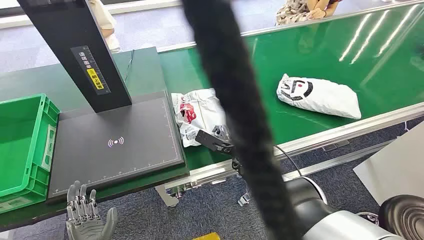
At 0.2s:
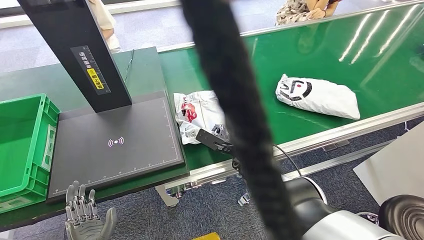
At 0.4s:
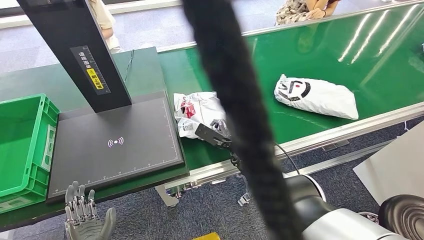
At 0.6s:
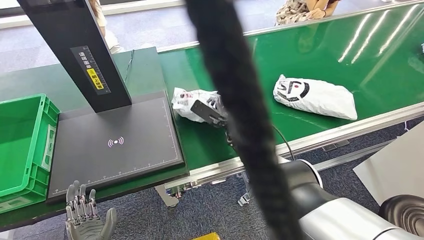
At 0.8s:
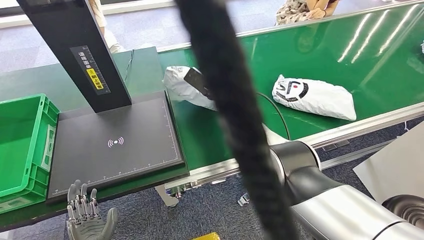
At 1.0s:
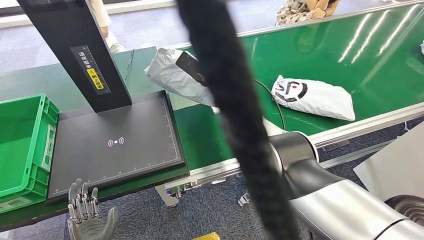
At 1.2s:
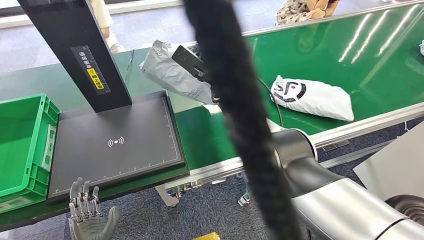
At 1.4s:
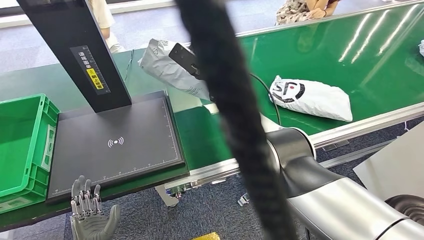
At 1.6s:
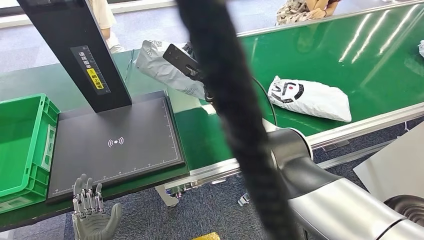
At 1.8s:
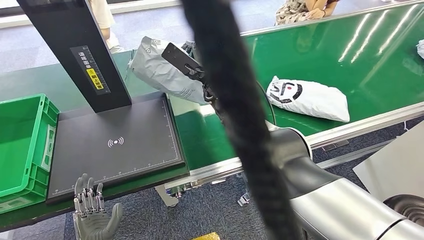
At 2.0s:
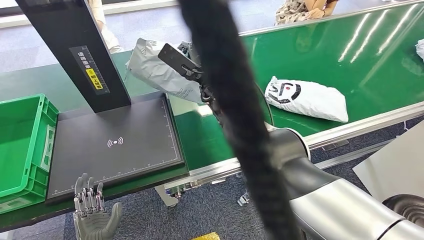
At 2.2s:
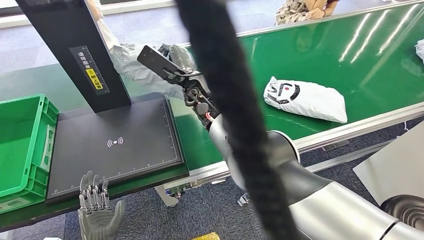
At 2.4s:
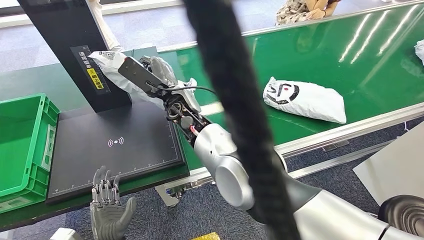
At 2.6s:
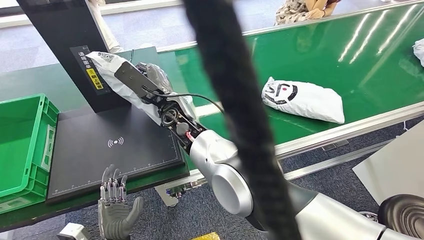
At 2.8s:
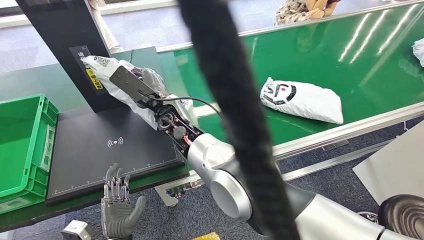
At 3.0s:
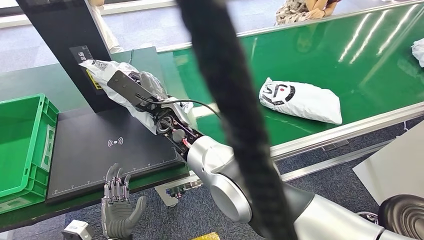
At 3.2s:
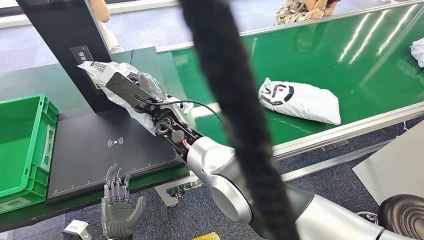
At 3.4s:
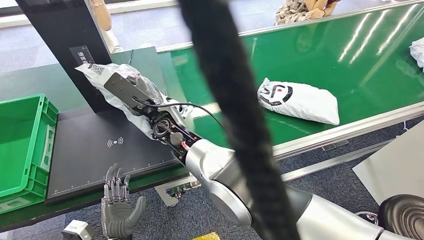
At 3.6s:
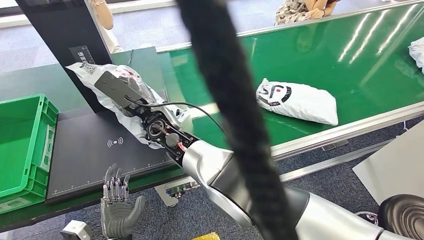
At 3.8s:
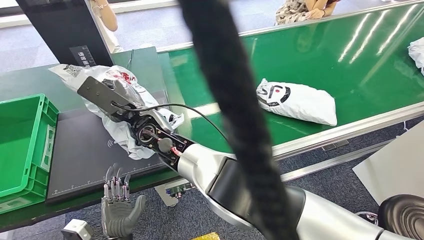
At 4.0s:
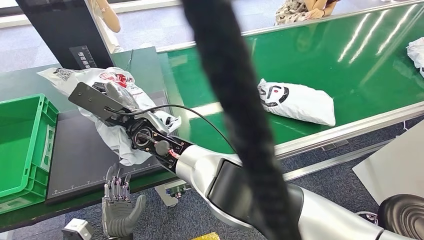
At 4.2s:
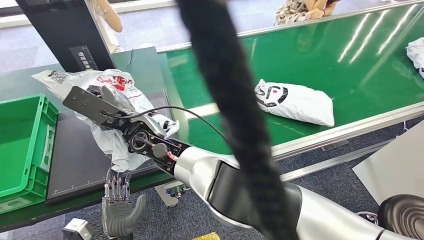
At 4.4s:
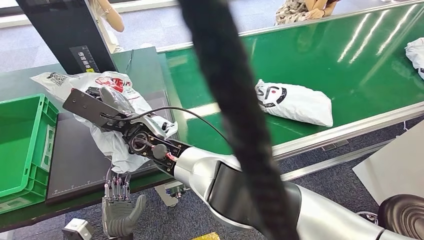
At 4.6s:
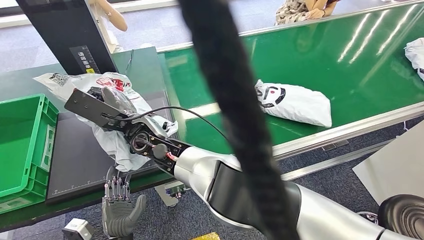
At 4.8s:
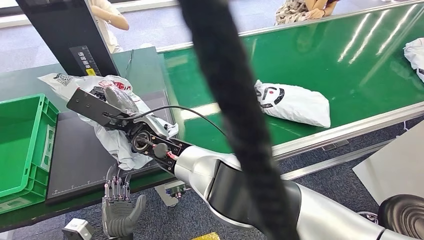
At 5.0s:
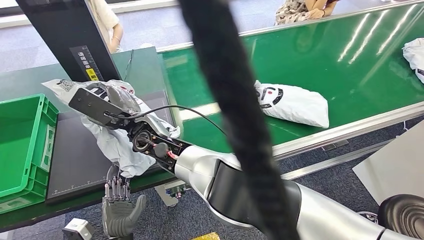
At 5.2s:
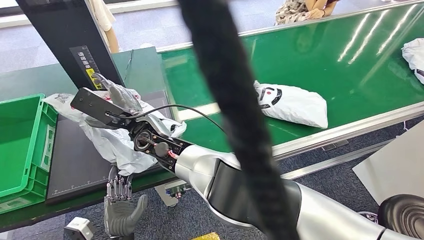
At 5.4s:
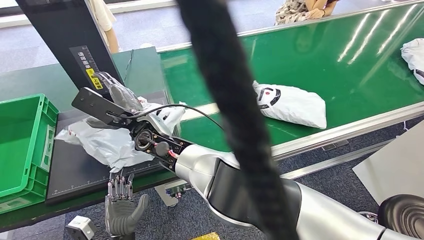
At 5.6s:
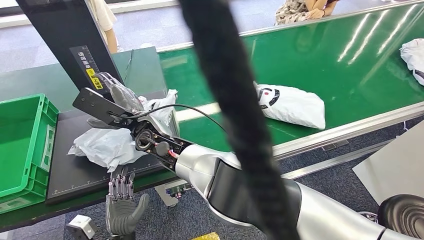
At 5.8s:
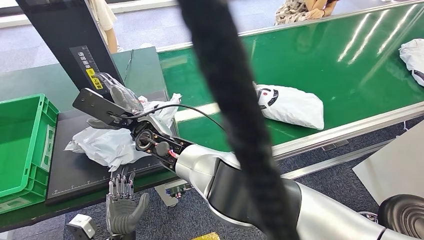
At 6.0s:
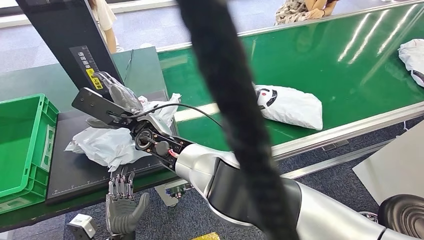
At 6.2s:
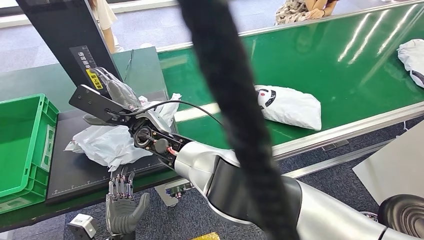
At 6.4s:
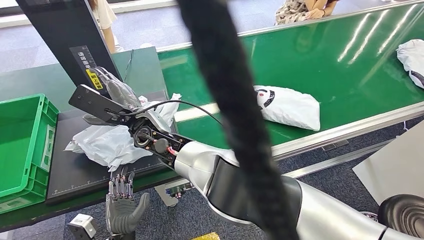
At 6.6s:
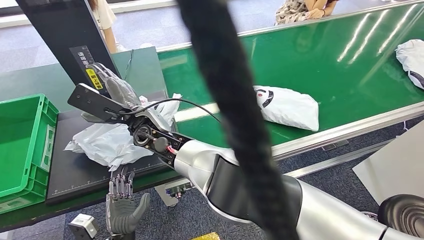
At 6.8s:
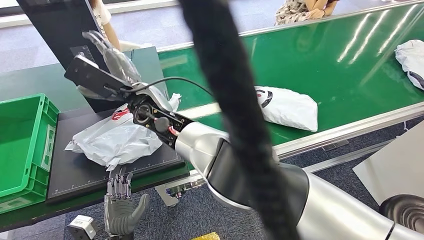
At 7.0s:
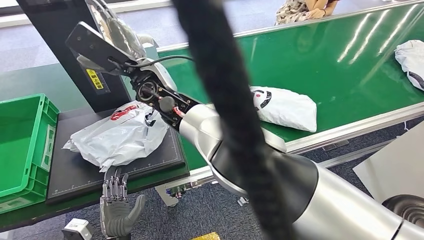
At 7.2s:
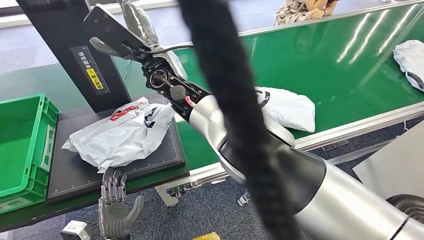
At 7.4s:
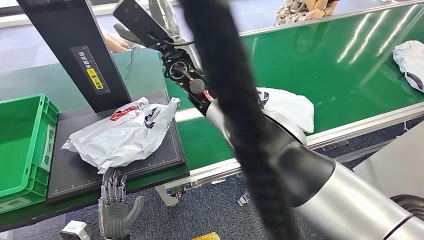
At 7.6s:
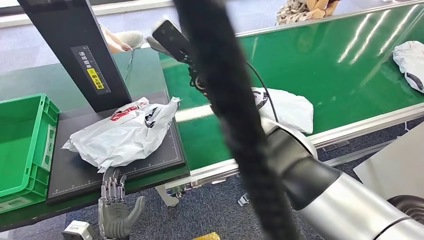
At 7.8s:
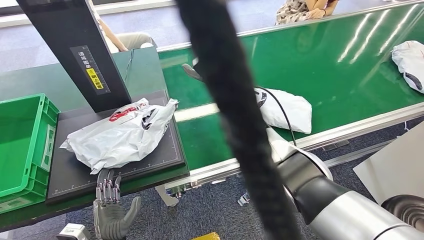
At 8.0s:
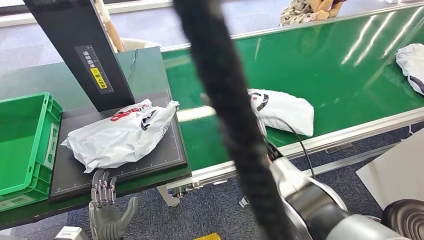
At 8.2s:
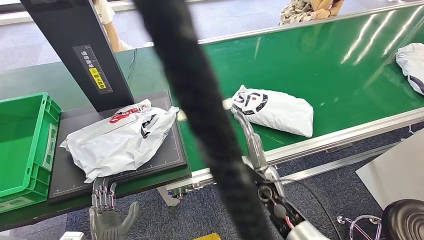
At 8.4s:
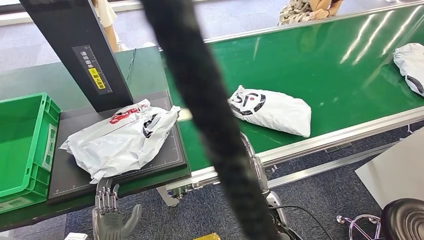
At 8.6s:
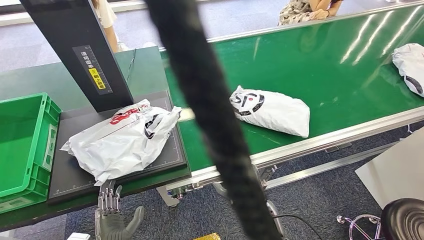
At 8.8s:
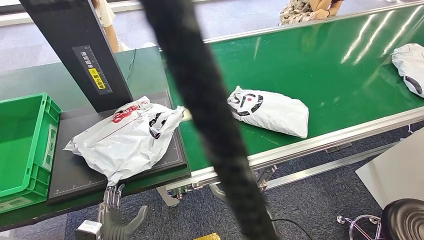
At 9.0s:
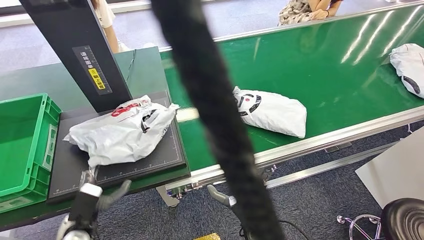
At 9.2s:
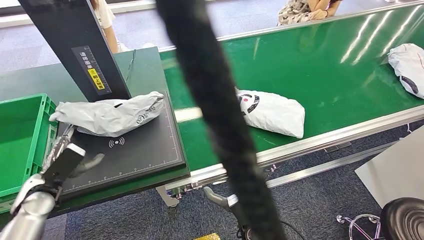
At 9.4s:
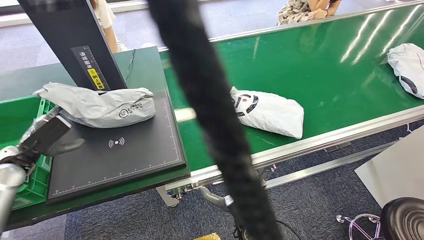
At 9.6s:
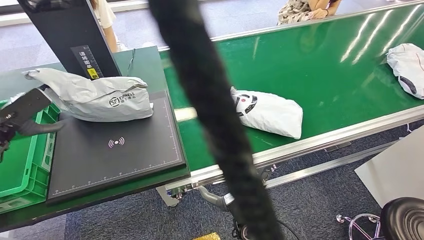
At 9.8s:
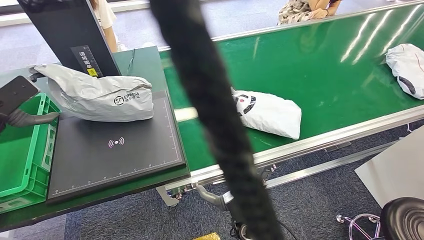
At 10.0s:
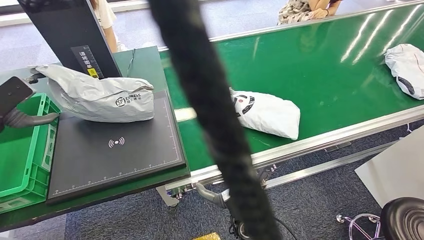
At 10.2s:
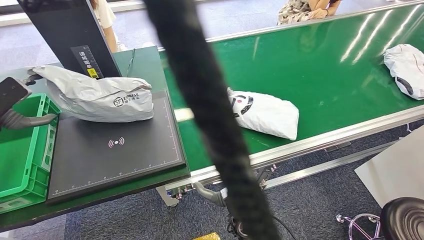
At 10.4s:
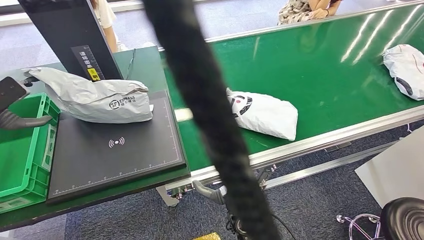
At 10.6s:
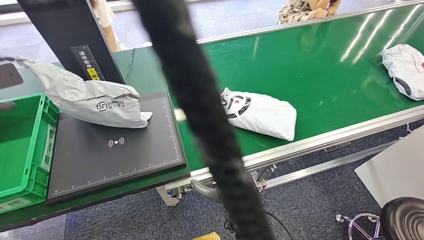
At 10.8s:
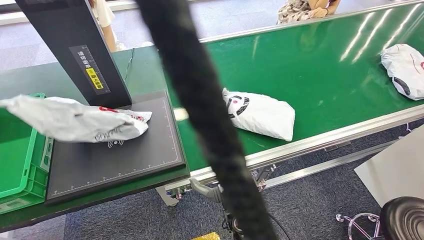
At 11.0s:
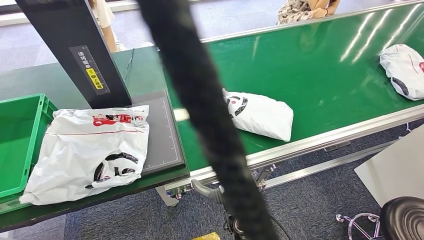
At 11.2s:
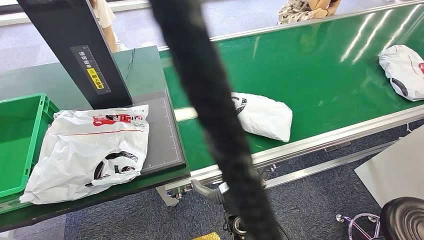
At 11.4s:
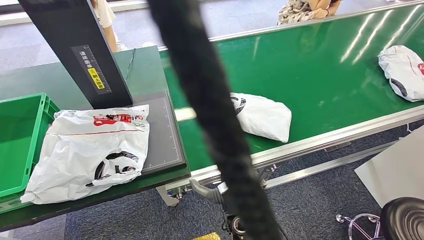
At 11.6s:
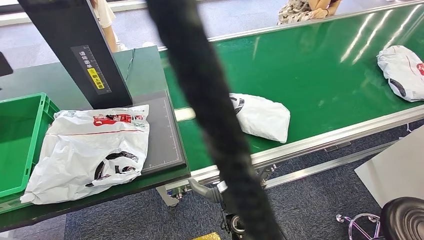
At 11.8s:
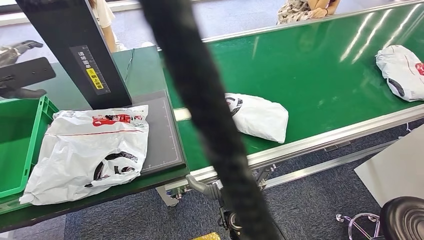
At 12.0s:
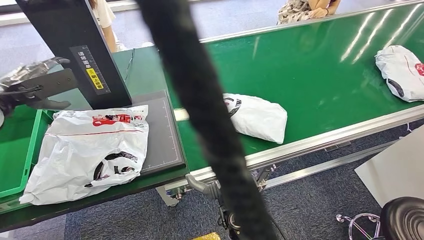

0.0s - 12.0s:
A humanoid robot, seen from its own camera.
Step, 0.0s - 1.2s: Pick up the package from the conveyor belt.
Step, 1.4s - 6.8s: Place the package onto the inbound machine.
3.0s - 4.4s: The right hand is displaced to the left by approximately 10 cm.
4.4s - 6.0s: The hands move only a little.

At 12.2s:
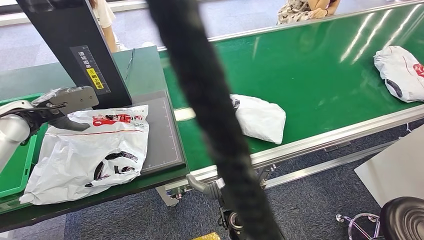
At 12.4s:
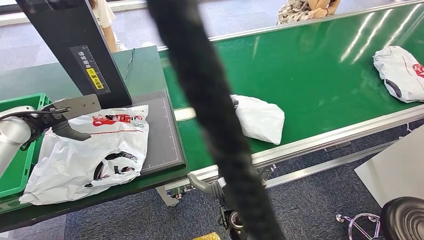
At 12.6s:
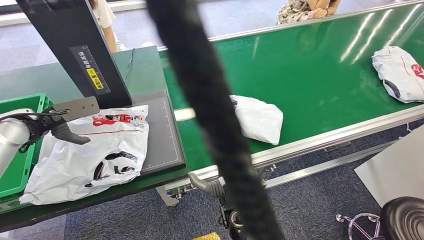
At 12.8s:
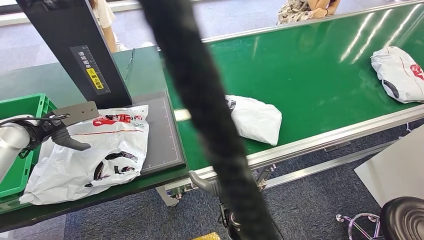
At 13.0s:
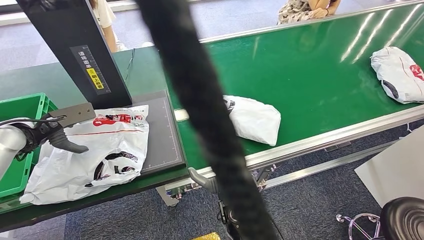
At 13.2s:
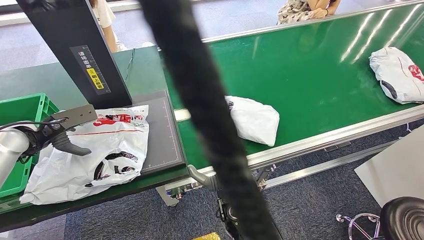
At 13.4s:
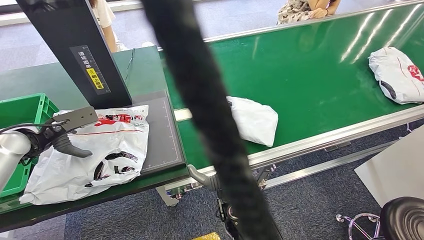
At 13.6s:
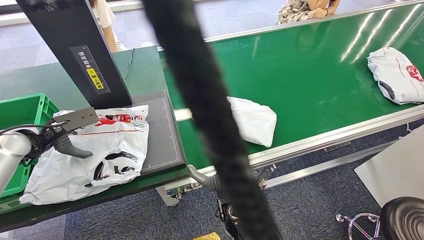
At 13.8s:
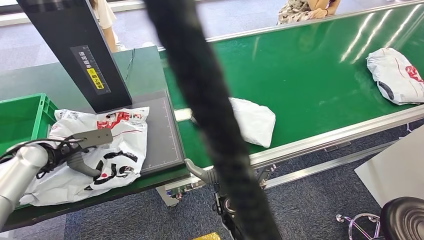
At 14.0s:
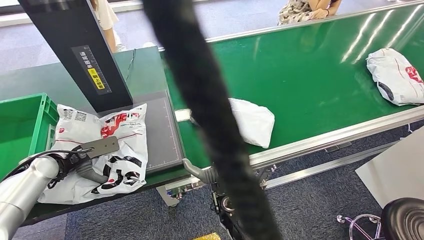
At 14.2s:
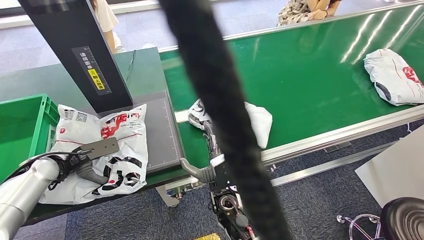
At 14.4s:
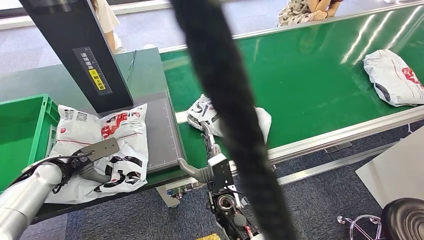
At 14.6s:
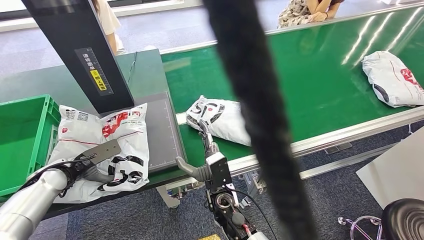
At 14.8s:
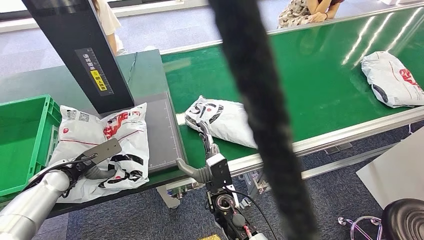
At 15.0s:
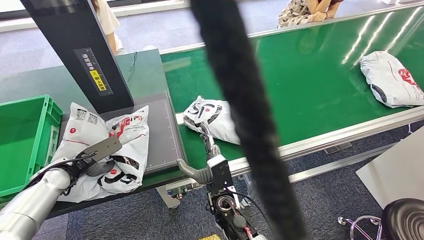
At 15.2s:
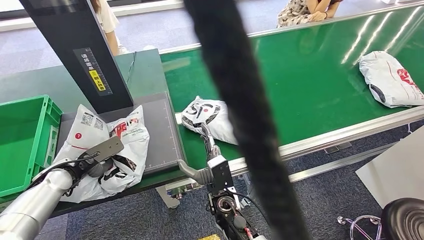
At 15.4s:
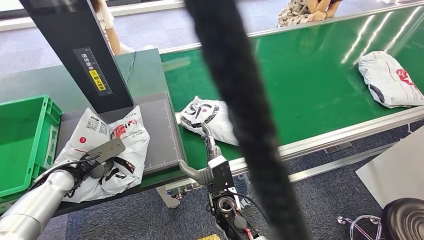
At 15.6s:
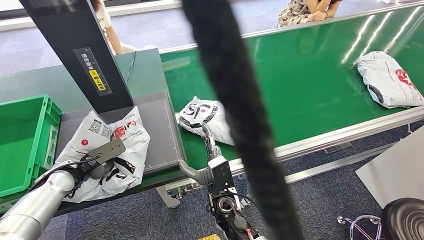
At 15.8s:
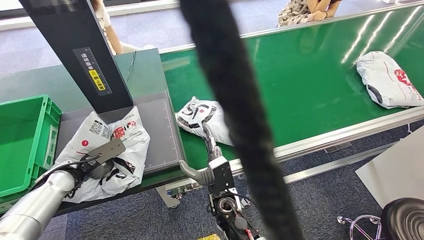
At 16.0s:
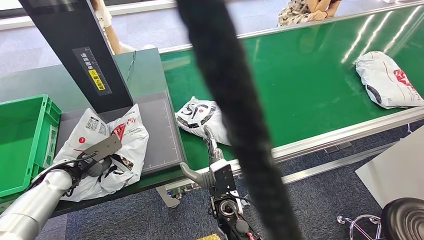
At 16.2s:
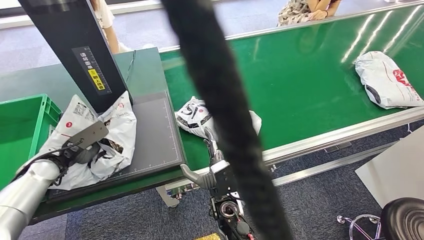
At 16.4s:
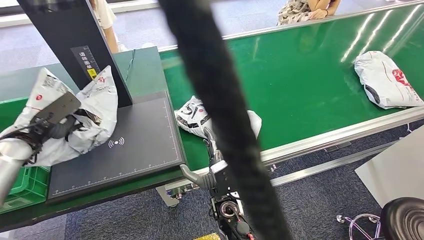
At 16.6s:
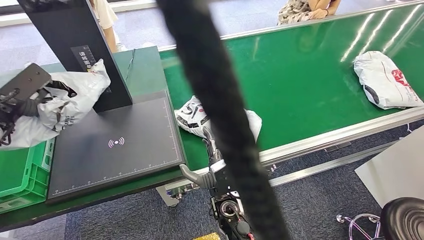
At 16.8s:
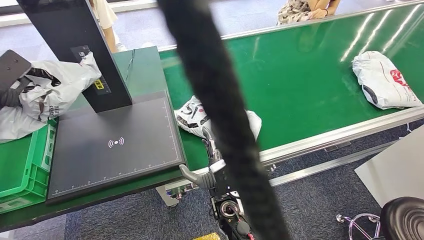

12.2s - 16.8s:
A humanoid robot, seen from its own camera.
Step, 12.8s - 16.8s: Pick up the package from the inbound machine.
12.2s - 13.8s: The left hand goes about 10 cm downward.
